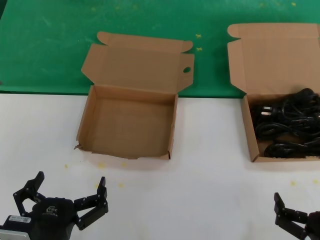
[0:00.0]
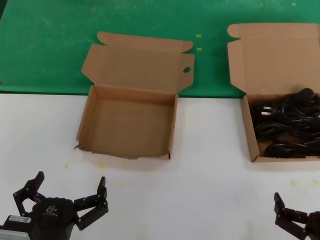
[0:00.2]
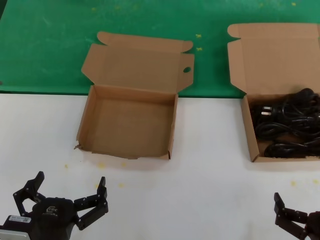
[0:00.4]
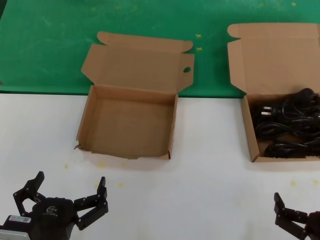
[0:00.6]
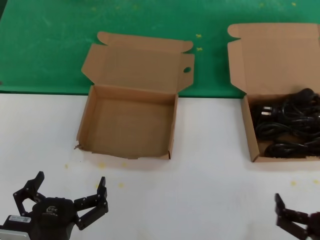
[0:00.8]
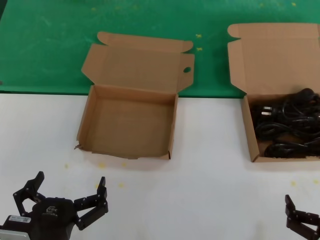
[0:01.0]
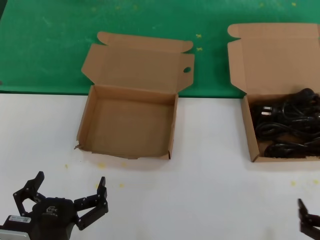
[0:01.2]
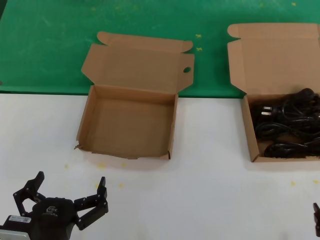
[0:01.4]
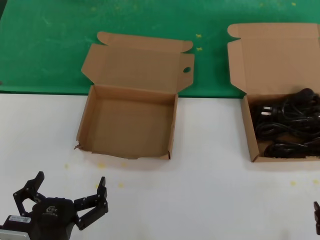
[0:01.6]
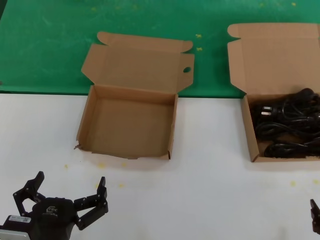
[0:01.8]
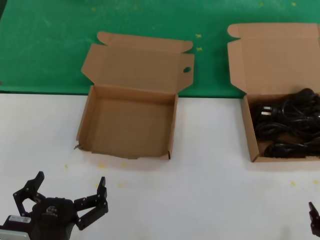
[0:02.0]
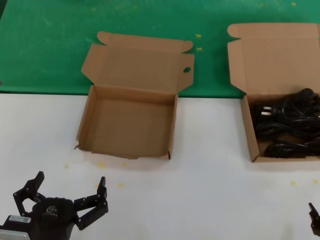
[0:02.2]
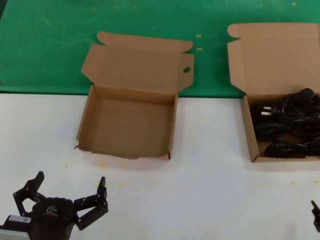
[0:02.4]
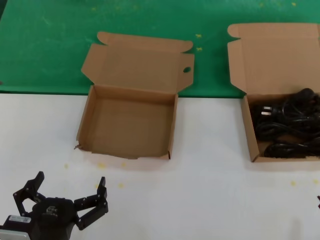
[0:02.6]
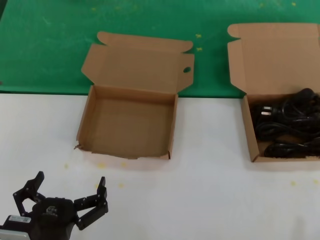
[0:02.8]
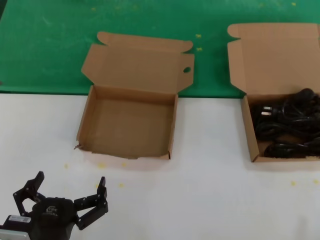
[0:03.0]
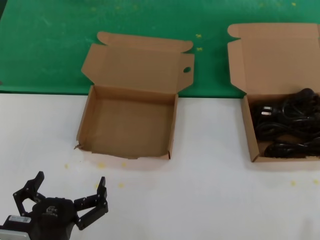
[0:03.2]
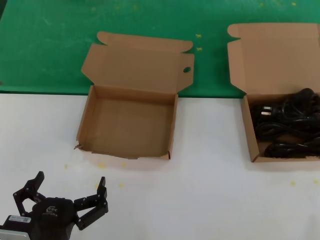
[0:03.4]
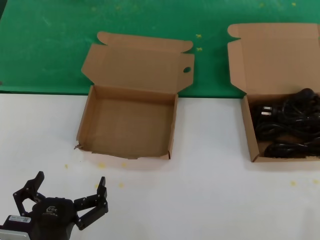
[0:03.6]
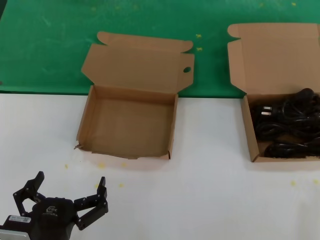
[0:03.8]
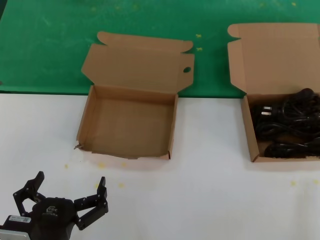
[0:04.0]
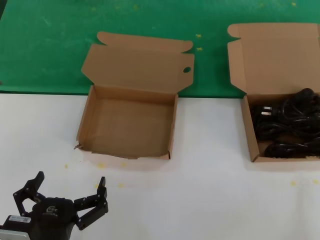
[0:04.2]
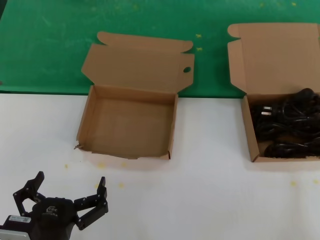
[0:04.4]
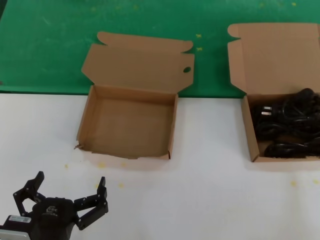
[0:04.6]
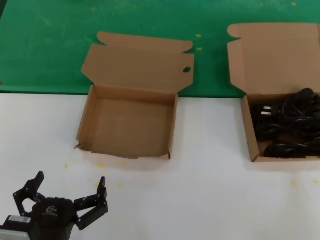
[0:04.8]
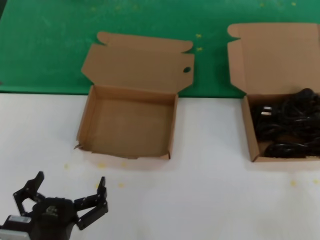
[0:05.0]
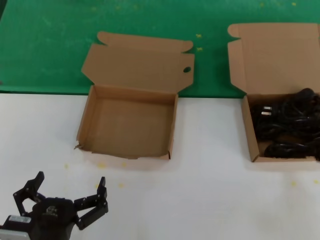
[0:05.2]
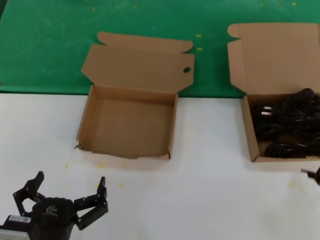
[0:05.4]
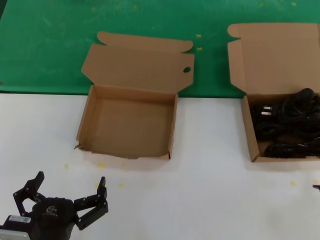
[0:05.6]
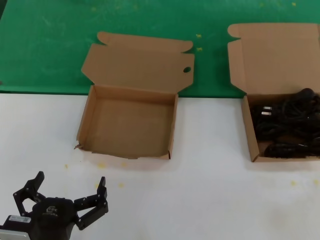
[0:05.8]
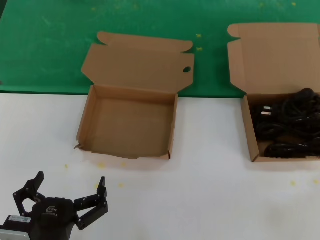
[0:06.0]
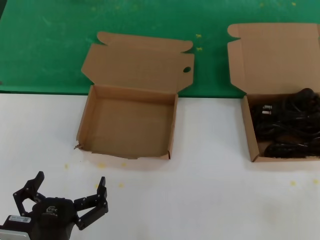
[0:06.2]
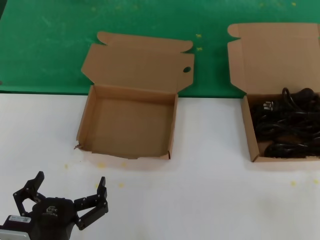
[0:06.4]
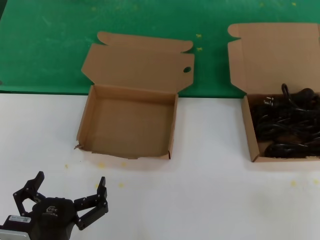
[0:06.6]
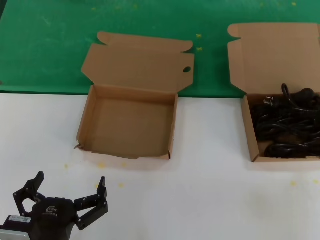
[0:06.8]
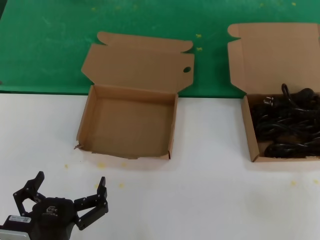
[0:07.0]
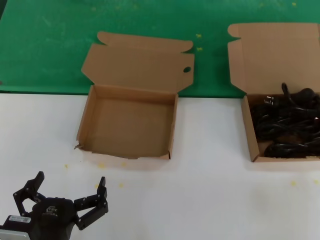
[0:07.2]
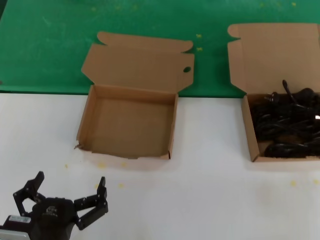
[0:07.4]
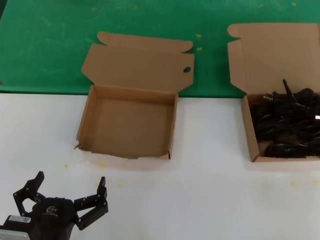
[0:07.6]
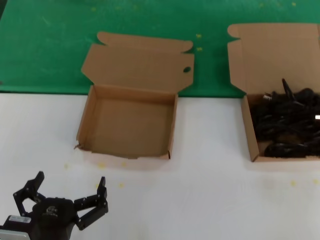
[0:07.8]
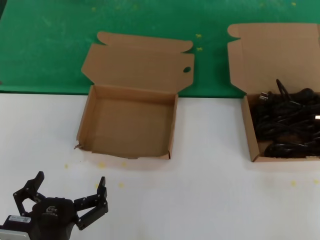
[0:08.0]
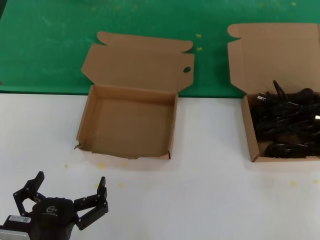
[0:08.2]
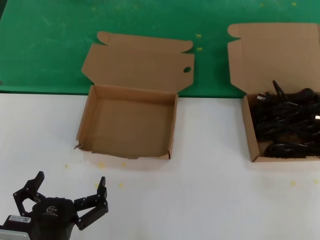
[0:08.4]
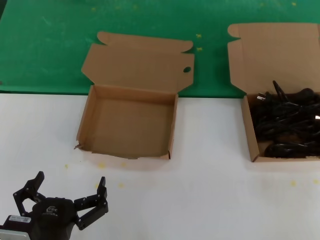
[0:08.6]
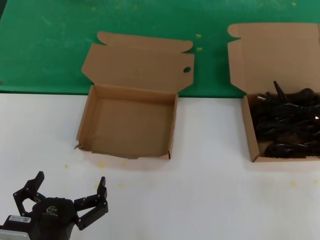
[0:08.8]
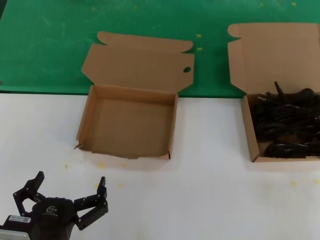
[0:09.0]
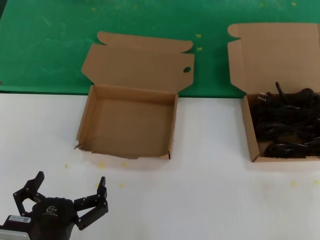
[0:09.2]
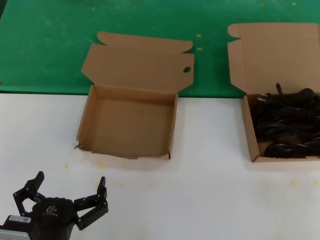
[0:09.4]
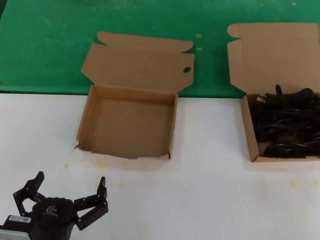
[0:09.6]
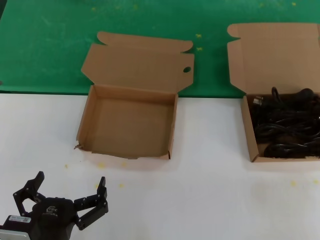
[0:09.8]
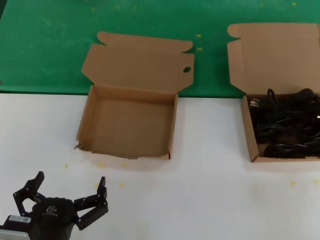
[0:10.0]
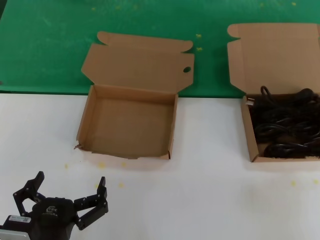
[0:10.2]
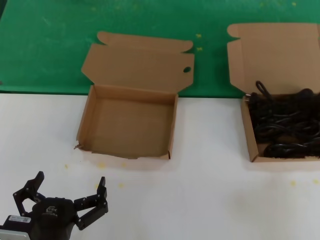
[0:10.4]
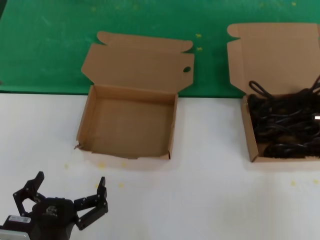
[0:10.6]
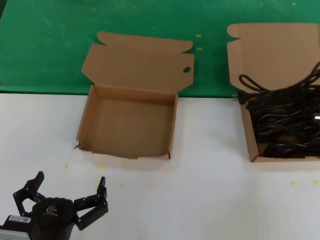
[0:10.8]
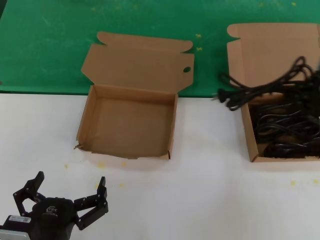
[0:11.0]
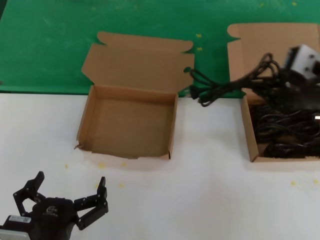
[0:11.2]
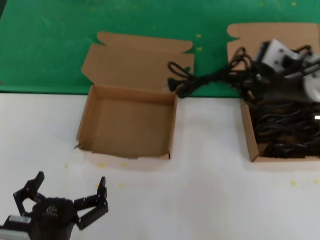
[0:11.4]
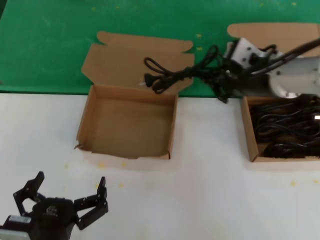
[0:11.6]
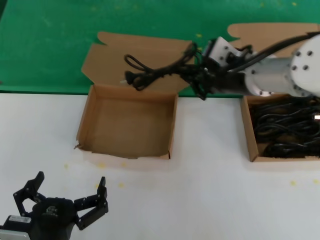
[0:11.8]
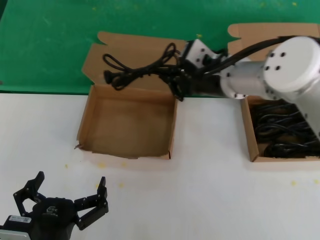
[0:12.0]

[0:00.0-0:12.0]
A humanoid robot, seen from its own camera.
Task of the whole recording: take the parts from the box containing them and put them into an empty box.
Step, 0:00.0 to 0:08.2: Grasp the data cable.
0:00.0 to 0:01.6: The right hand heads to the right, covering some 5 cm.
0:10.4 to 0:12.0: The right hand heads to the left, covering about 25 cm.

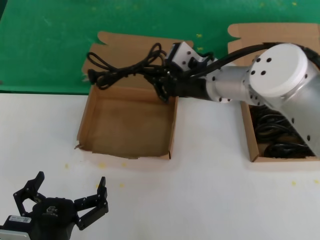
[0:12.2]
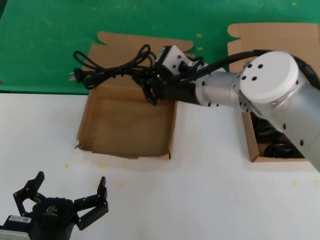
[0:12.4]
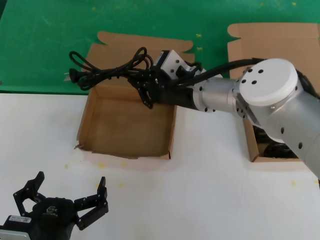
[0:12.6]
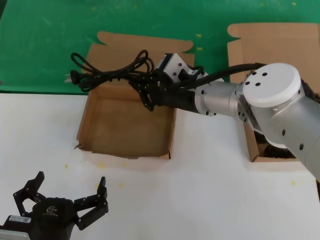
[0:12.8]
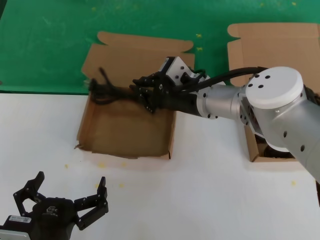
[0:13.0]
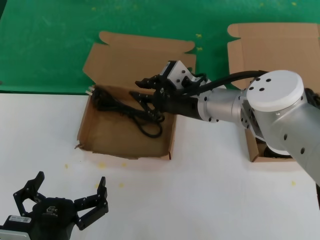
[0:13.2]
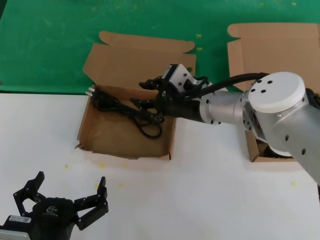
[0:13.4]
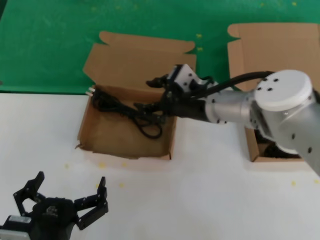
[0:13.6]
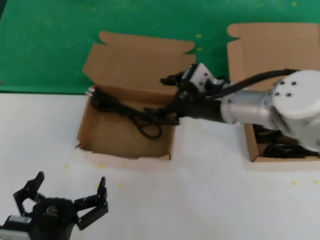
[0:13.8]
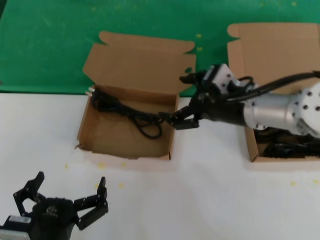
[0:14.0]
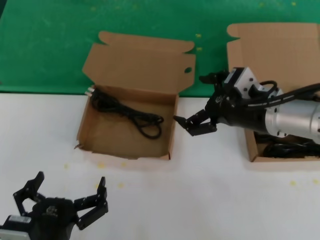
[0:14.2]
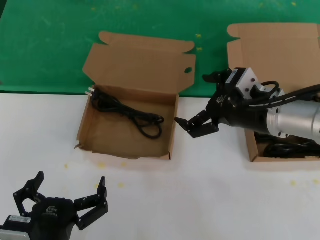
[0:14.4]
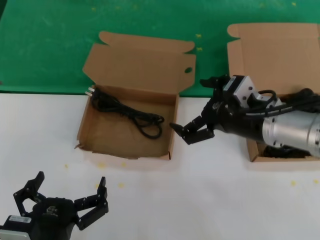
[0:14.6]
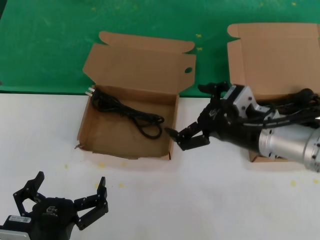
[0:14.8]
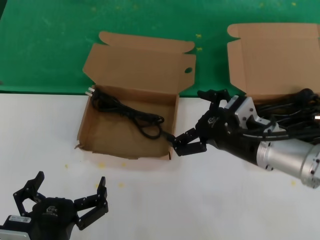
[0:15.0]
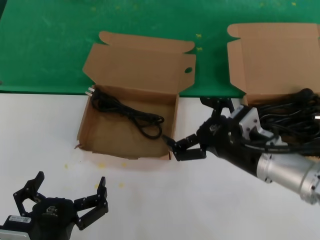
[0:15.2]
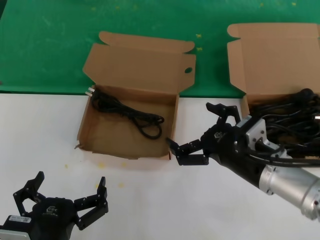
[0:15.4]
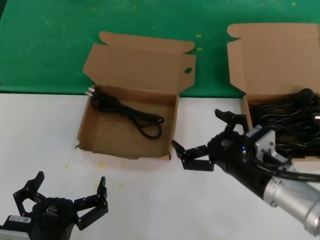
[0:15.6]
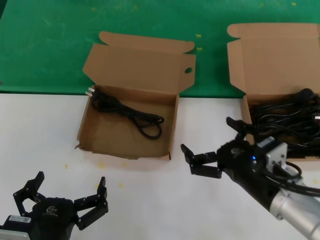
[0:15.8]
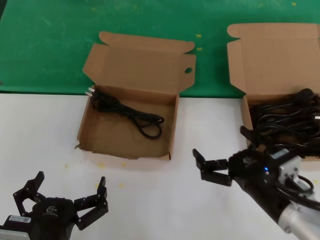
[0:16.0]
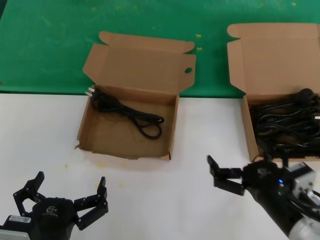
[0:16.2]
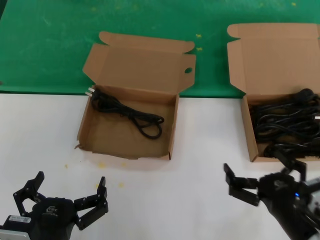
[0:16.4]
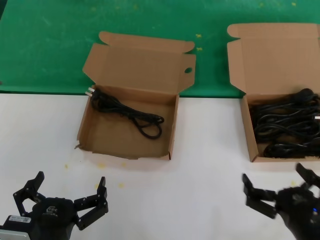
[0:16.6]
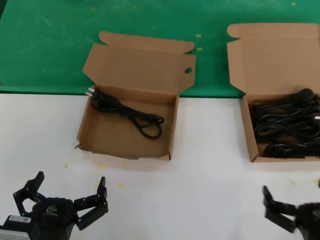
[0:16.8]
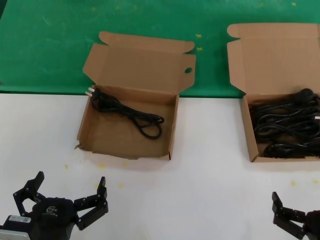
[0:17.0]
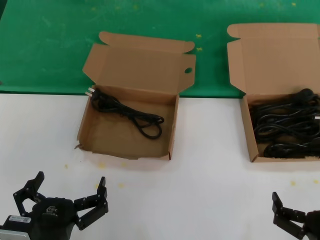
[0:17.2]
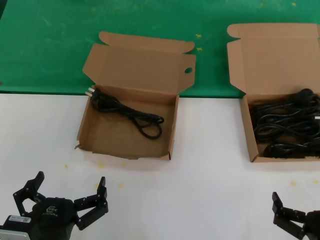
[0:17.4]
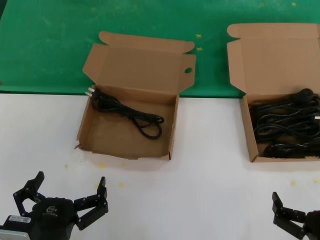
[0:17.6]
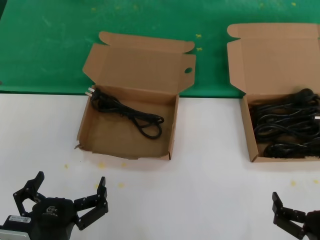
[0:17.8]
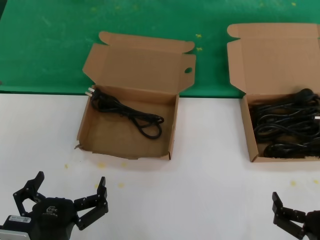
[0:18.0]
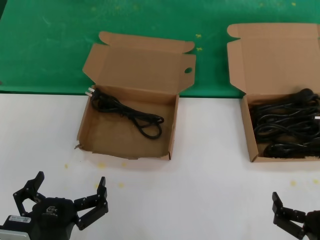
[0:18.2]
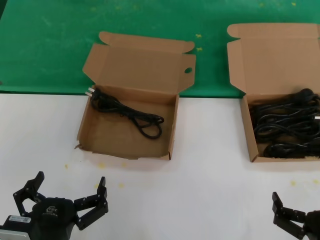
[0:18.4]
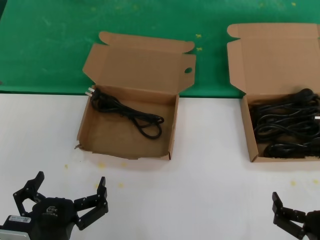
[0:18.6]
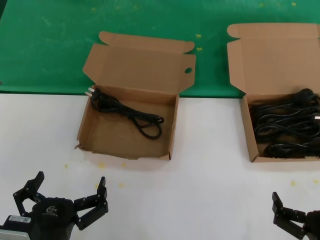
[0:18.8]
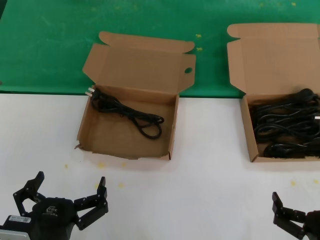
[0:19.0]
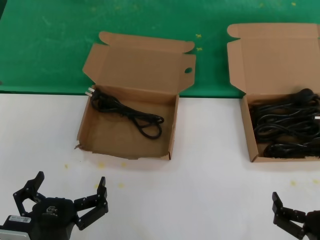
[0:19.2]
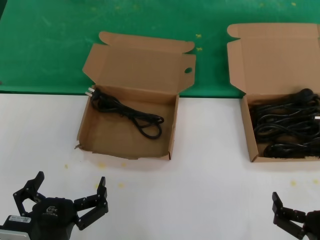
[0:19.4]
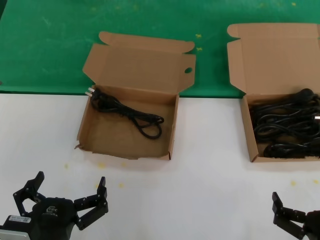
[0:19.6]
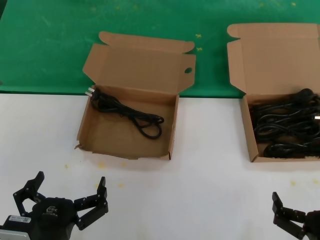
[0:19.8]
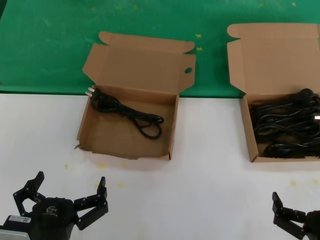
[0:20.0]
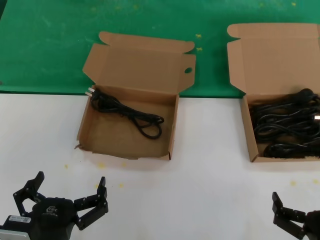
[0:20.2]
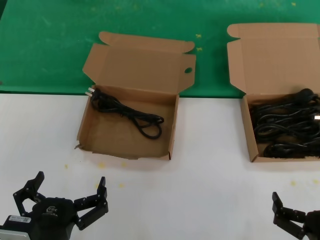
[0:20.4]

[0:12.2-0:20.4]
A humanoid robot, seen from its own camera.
Task of the whole recording: take the parts from the box containing them and put them into an empty box.
0:12.2 to 0:13.8: The right hand moves some 5 cm.
0:13.8 to 0:15.4: The right hand goes roughly 15 cm downward, backward and to the right.
0:15.4 to 0:17.2: The right hand shifts some 20 cm backward, downward and to the right.
0:17.2 to 0:20.4: Both hands stay put.

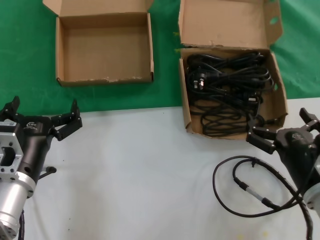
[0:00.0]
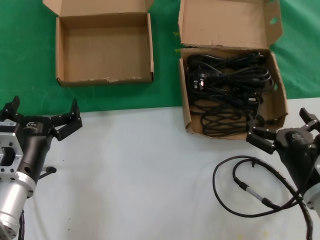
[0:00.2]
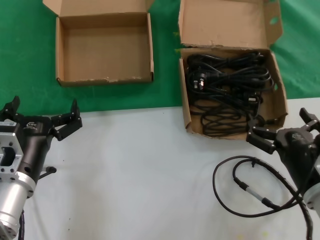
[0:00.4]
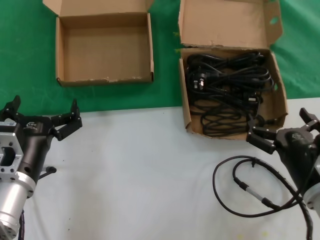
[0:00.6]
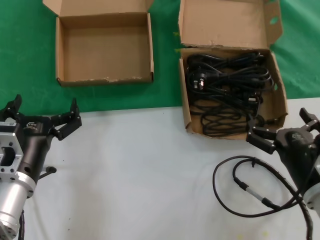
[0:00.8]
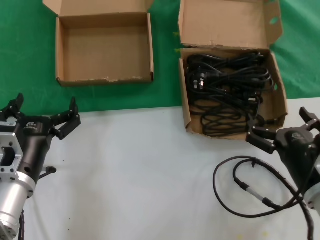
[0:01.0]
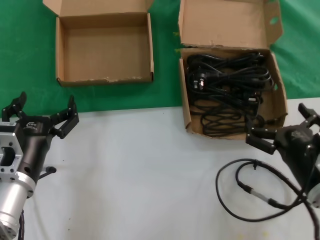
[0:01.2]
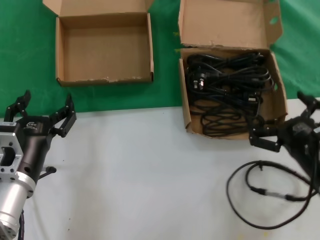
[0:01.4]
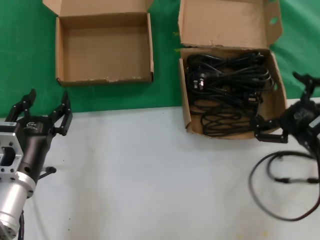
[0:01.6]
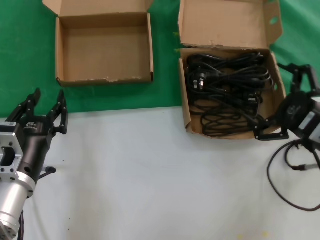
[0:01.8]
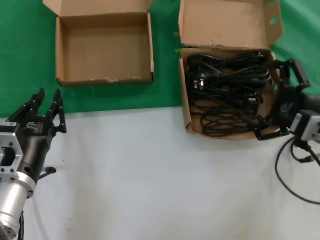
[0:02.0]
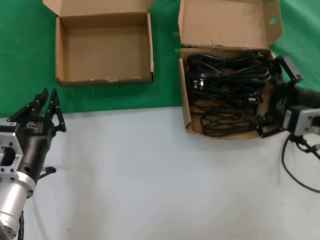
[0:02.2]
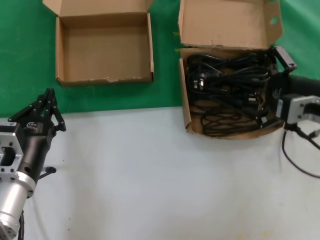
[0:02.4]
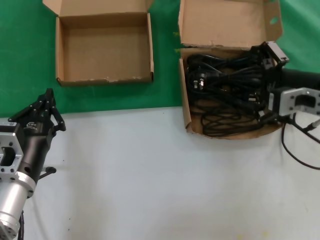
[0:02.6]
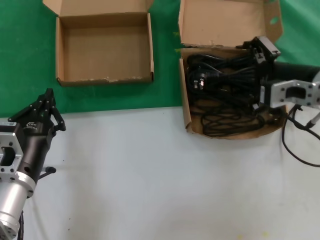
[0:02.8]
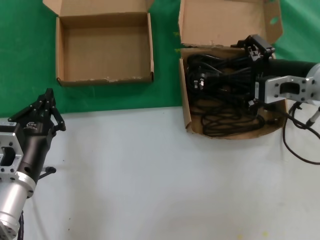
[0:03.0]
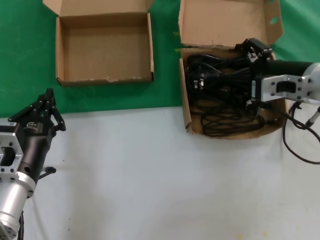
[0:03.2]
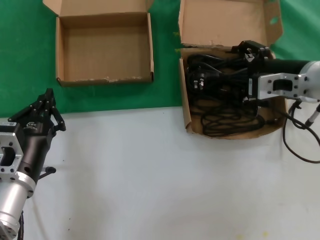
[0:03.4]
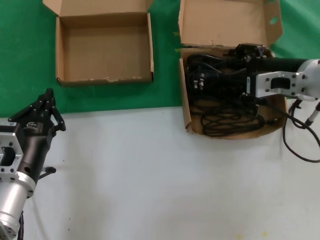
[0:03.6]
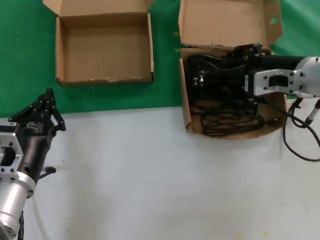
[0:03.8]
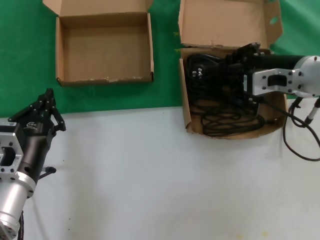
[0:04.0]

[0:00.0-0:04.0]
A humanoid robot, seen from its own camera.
Task of the whole recording: take the parts from the box containing them and put them into an empty box.
0:00.0 to 0:01.4: The hands move only a little.
0:01.4 to 0:02.6: The right hand goes some 15 cm upward and forward.
0:02.6 to 0:04.0: The right hand travels forward by some 5 cm.
